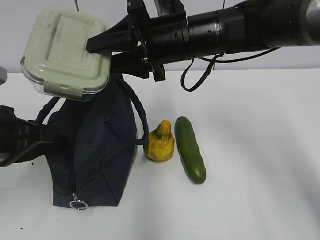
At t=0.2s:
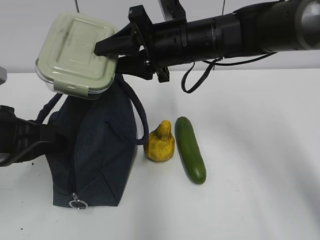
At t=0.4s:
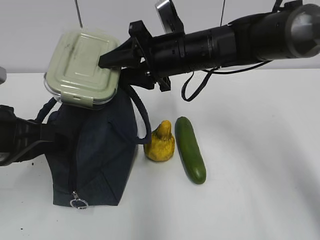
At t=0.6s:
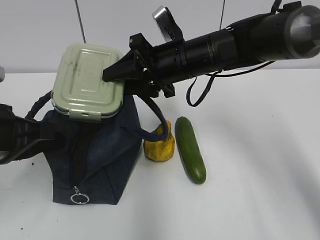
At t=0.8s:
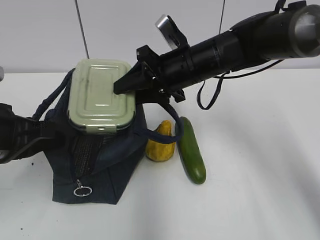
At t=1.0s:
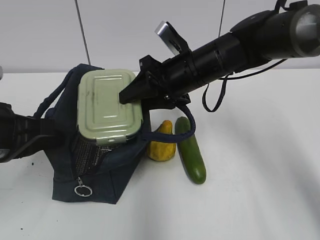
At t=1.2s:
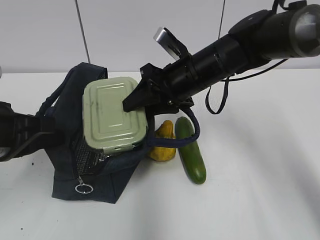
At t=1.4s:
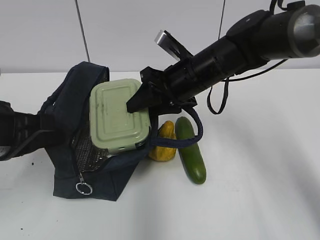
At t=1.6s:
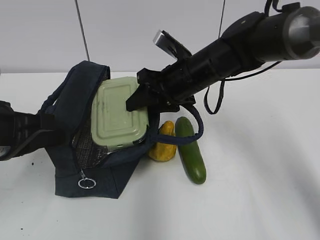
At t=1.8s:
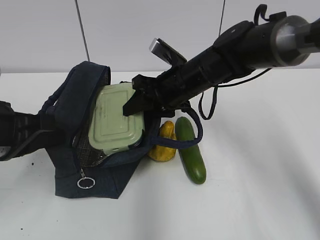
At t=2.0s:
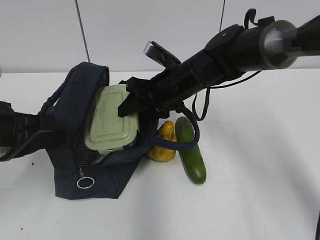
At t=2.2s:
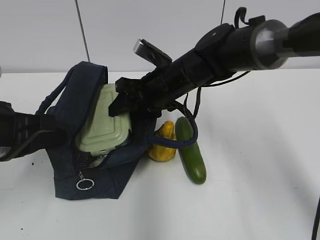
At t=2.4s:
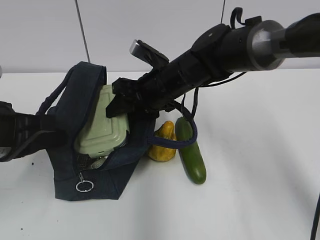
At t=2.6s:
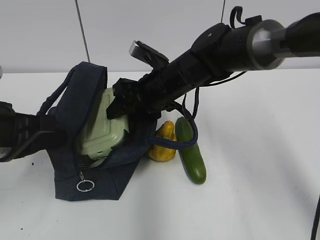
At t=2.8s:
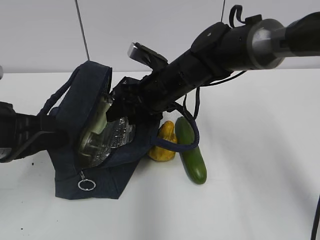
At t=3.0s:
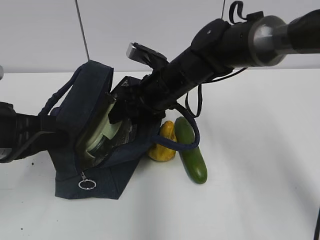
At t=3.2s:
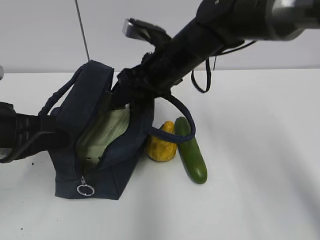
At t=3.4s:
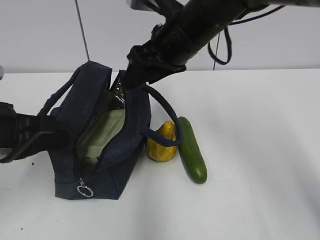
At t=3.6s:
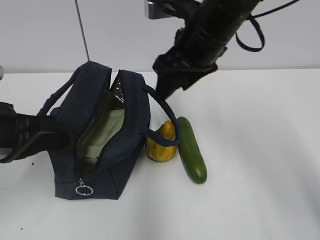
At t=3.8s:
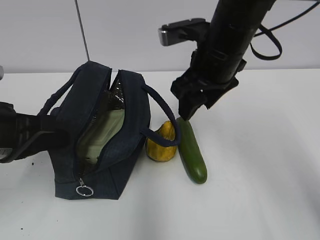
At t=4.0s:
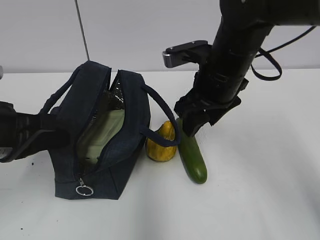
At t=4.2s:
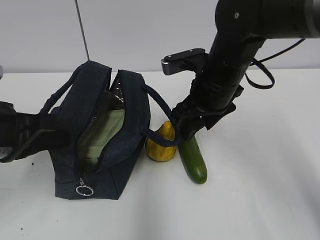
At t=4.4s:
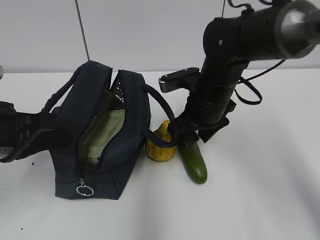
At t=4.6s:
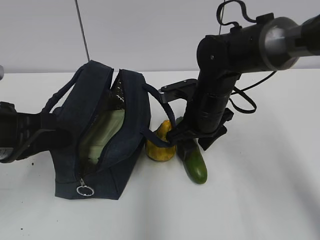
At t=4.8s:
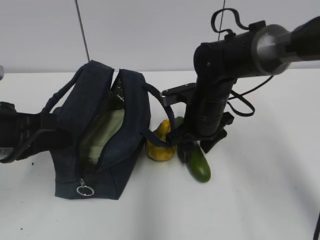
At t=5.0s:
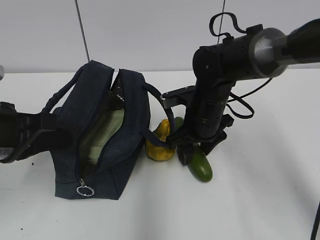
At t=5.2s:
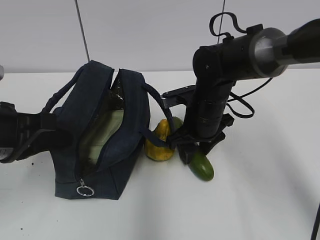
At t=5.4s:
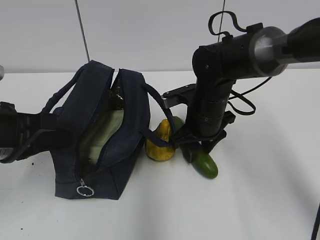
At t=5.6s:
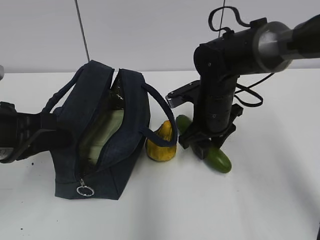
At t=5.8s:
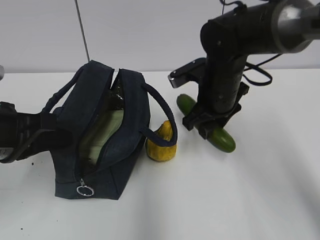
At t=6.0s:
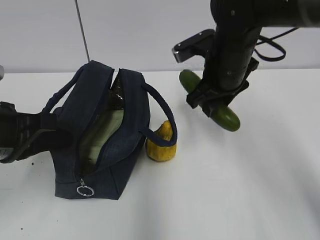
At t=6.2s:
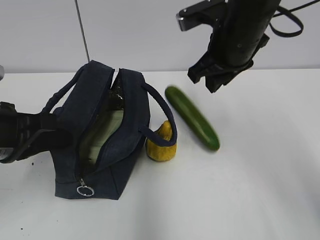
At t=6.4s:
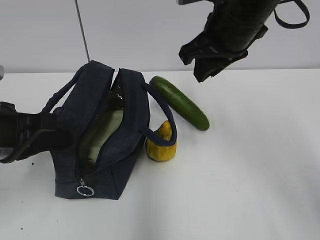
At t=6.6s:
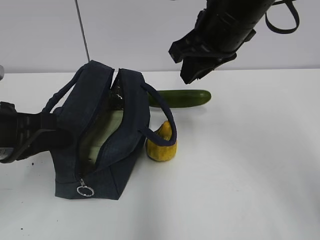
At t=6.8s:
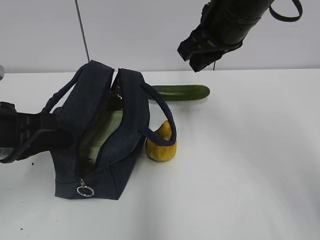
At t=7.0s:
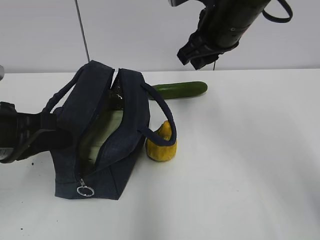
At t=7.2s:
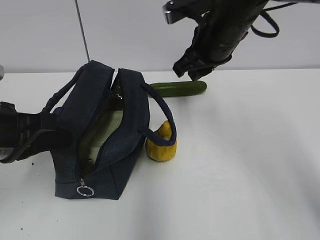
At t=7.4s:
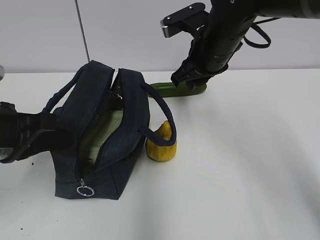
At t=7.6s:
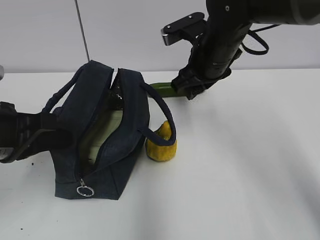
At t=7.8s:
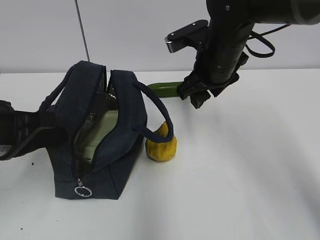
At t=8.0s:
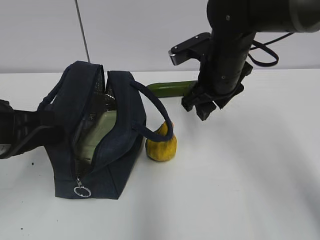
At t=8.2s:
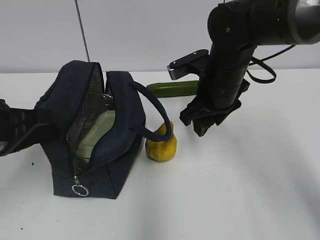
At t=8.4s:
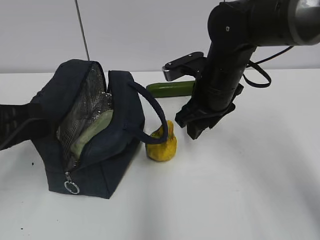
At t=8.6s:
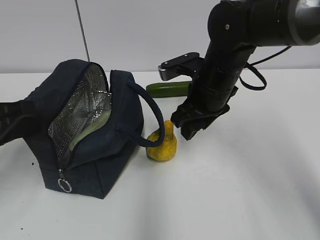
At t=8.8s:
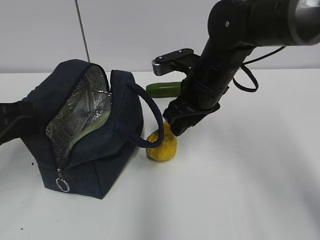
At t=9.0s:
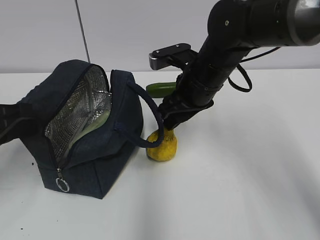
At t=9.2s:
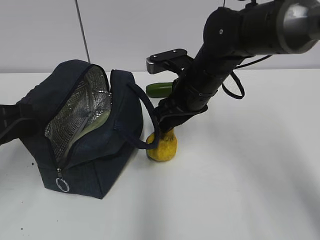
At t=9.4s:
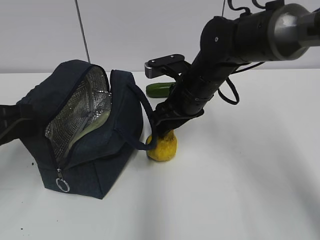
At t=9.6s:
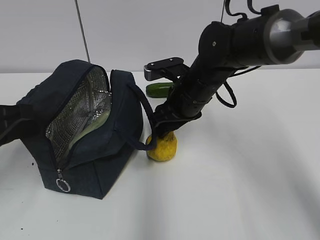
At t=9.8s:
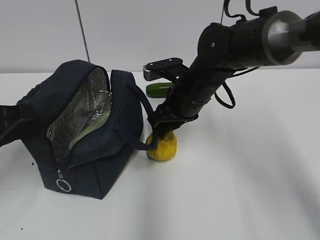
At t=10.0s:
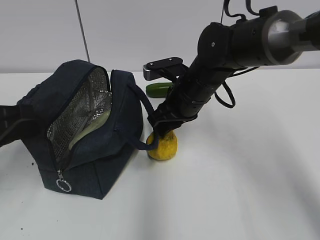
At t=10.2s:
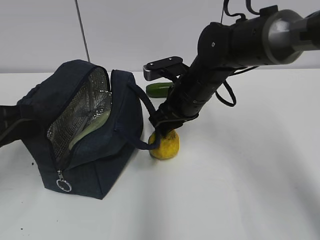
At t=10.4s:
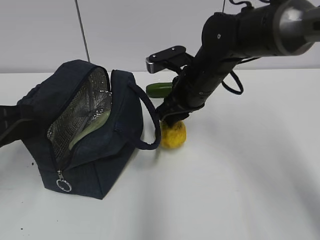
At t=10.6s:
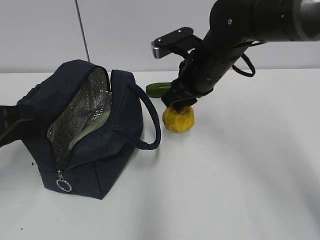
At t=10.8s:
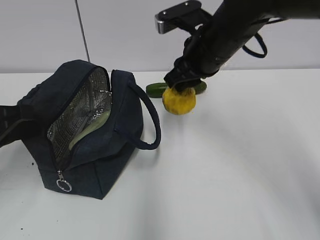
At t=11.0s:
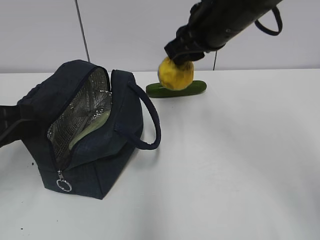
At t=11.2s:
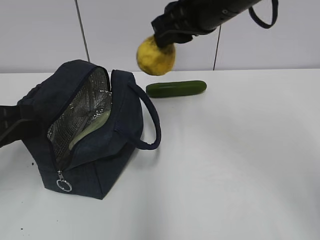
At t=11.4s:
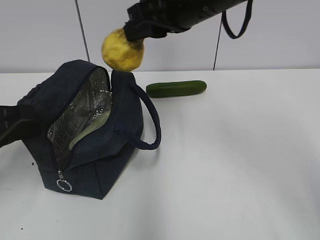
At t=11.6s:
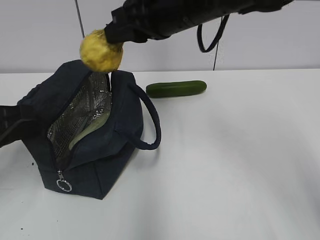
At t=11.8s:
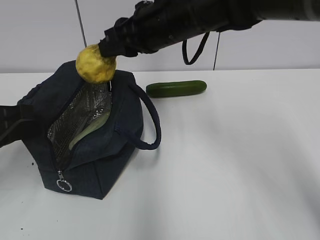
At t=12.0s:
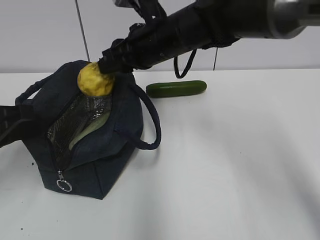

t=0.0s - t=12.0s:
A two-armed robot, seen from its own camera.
t=0.0s - t=1.6s: The right gripper shifts about 5 cm downward.
t=1.6s - t=3.0s: The grippers move only a little.
t=3.0s - t=4.4s: The right gripper is displaced to the right by roughly 5 cm, and reaches roughly 10 cm upward, then returns.
t=4.4s - t=6.0s: There are only small adjustments of the grippers.
t=6.0s - t=7.6s: The right gripper reaches roughly 10 cm upward, then returns.
t=9.0s - t=10.4s: The right gripper closes.
t=10.4s - t=12.0s: The right gripper moves upward and to the left, approximately 10 cm.

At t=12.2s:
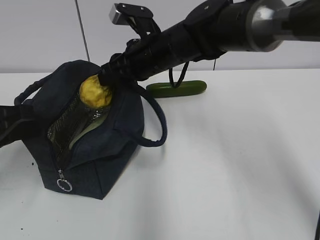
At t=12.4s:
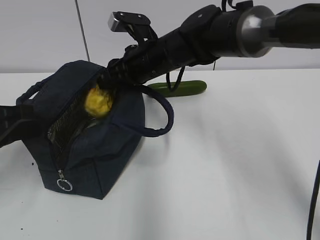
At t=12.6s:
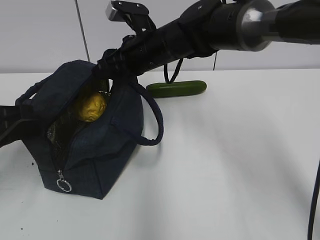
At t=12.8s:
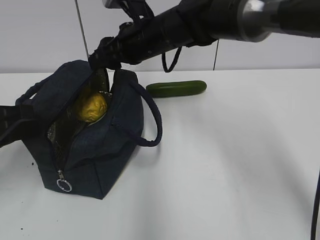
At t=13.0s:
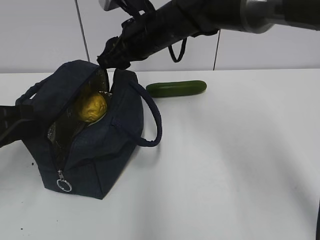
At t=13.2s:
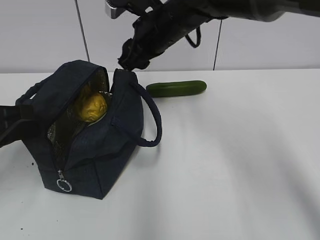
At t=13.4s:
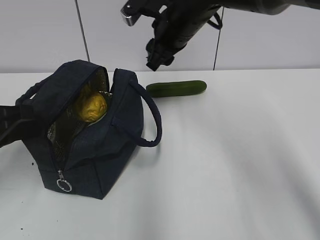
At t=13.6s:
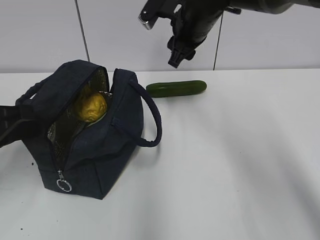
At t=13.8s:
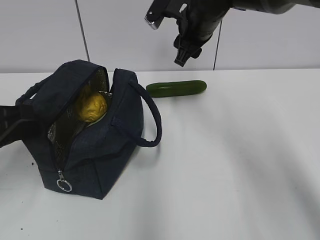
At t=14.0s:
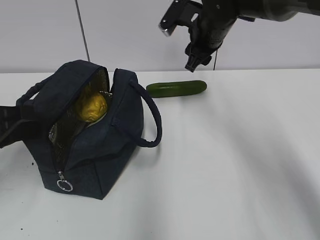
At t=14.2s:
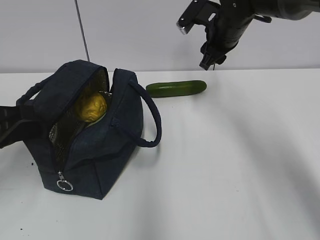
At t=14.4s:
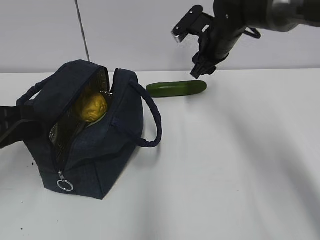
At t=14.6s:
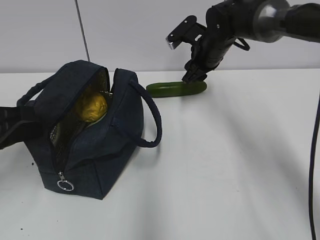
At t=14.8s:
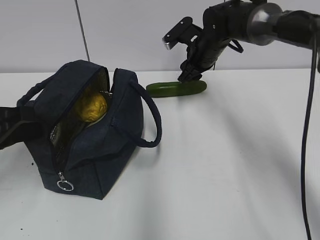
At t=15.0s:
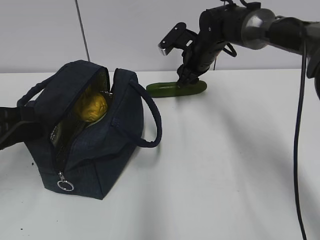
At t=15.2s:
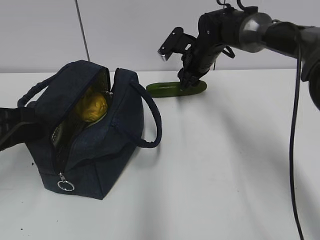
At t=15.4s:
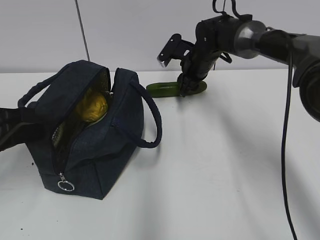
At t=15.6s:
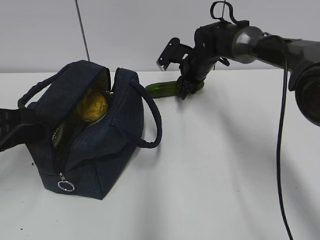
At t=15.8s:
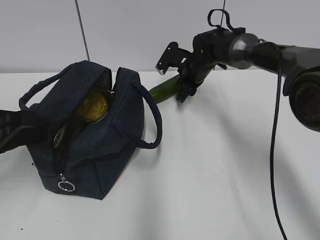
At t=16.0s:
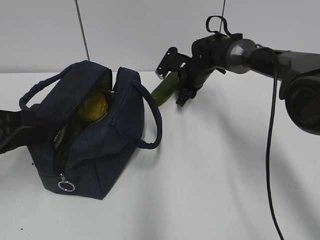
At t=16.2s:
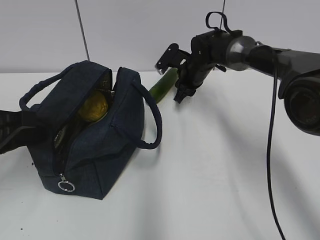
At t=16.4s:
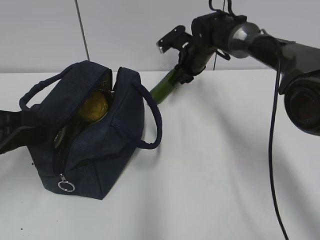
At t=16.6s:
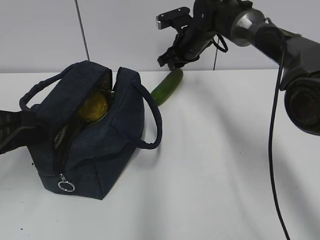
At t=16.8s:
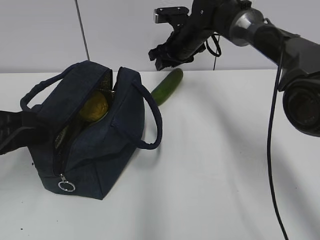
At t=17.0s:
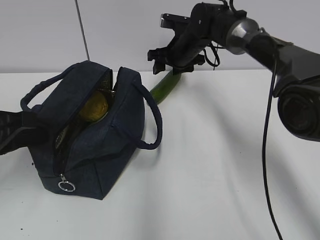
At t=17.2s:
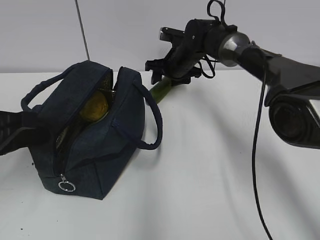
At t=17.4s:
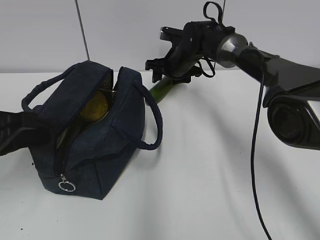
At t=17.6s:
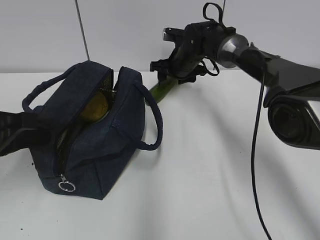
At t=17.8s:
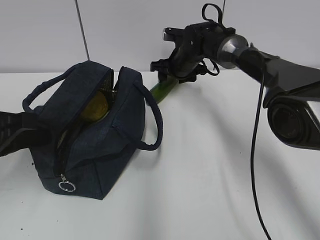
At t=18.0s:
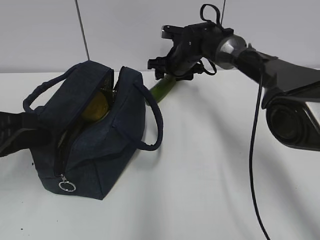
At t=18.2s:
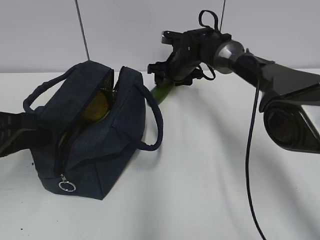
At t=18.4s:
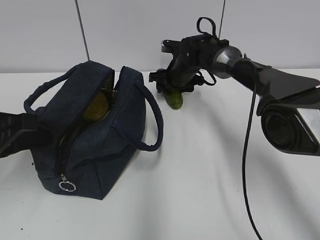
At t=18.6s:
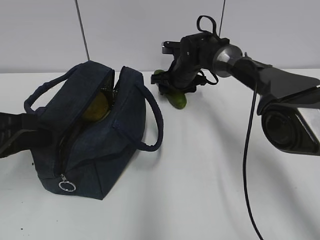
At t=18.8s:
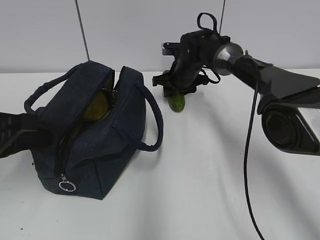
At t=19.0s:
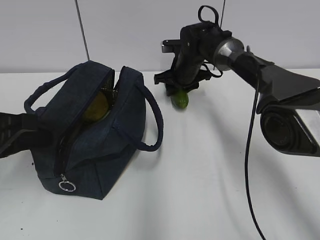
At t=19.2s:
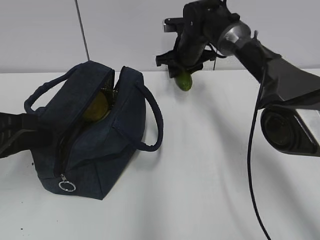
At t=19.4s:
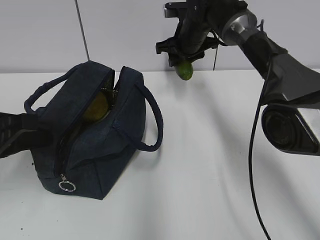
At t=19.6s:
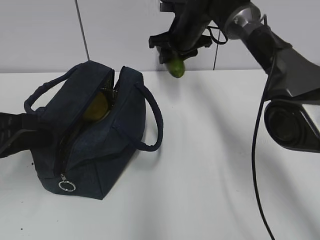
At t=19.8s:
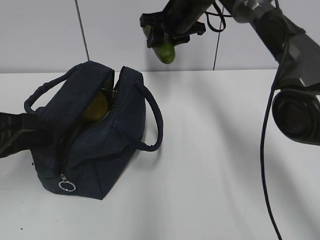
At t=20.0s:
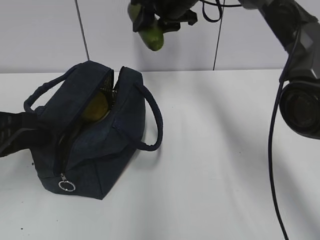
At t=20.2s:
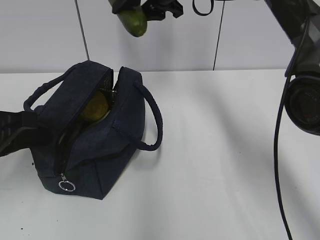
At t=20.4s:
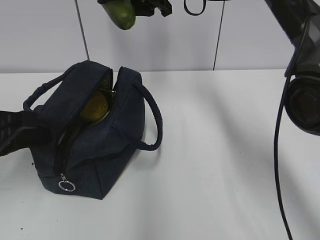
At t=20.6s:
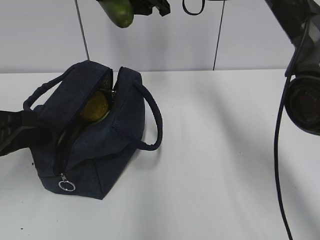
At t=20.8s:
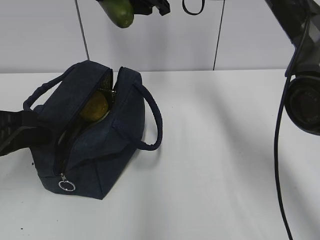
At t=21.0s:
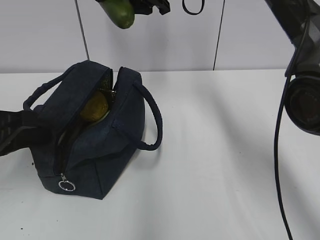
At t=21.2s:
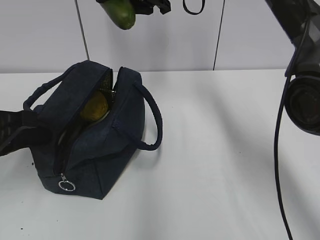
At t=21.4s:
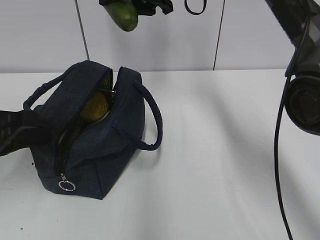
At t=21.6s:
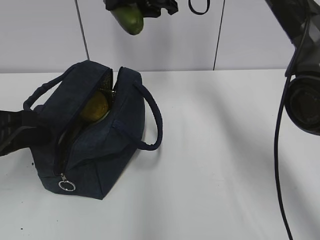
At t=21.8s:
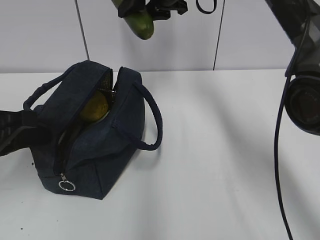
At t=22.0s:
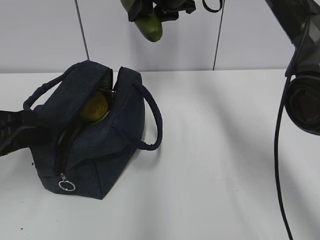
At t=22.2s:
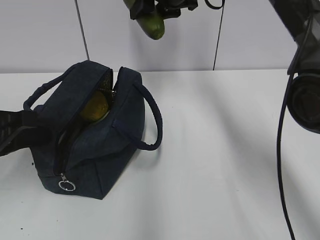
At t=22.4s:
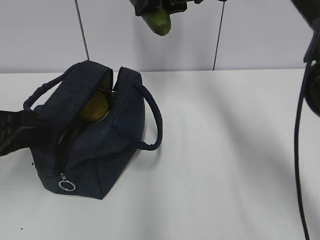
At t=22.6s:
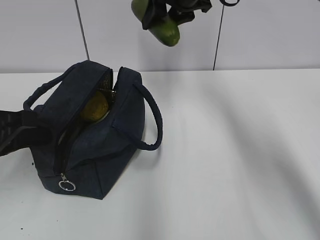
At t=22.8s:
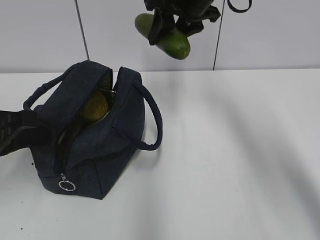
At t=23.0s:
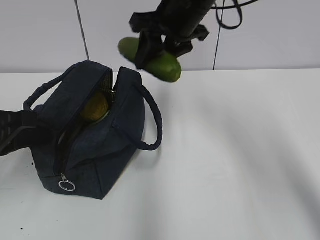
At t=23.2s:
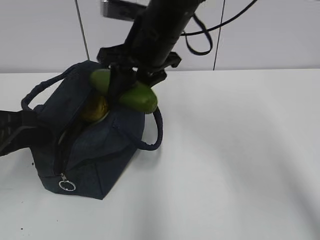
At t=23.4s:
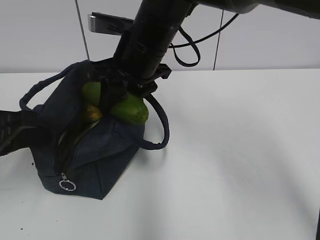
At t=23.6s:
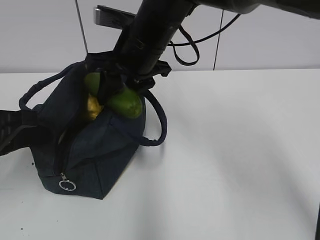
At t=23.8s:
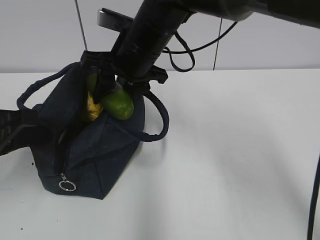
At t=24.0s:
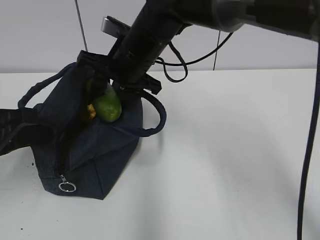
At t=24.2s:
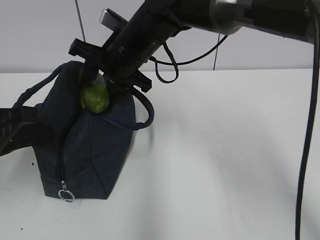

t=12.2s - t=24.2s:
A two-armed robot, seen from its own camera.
t=12.2s - t=13.8s: The right gripper heads to the right, covering about 10 cm.
t=13.8s - t=15.2s: The right gripper shifts roughly 10 cm downward and forward.
t=16.6s - t=18.2s: The right gripper travels downward by roughly 5 cm, and opens.
t=18.2s - t=19.8s: The right gripper shifts about 15 cm upward.
t=19.8s - t=21.2s: The right gripper moves upward, roughly 5 cm.
t=22.6s - t=24.2s: The right gripper is displaced to the left, downward and backward by some 15 cm.
